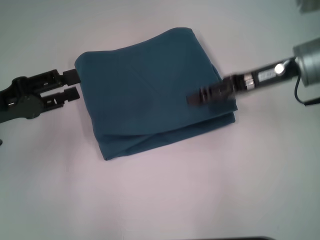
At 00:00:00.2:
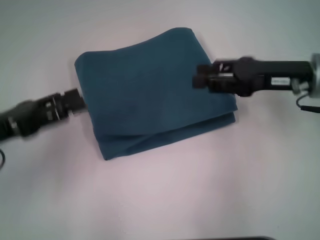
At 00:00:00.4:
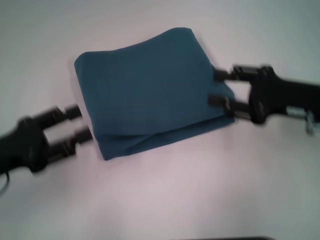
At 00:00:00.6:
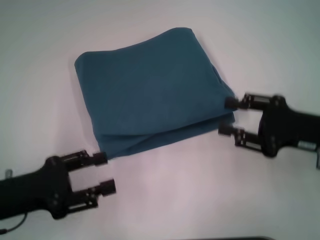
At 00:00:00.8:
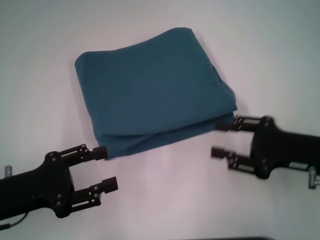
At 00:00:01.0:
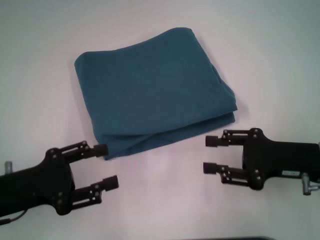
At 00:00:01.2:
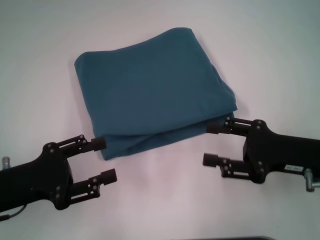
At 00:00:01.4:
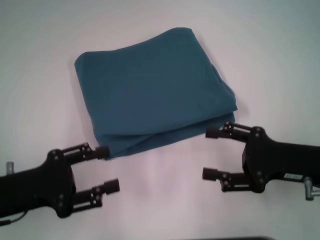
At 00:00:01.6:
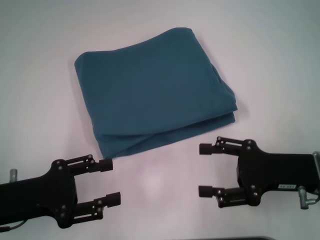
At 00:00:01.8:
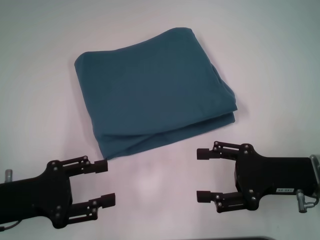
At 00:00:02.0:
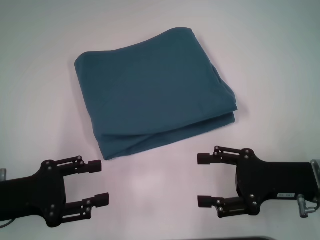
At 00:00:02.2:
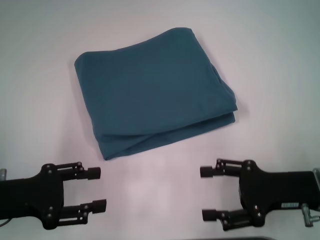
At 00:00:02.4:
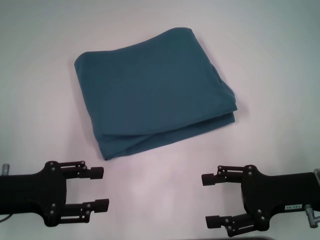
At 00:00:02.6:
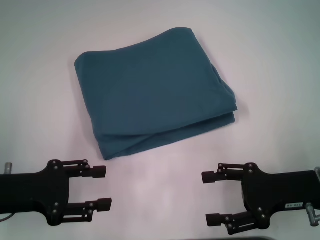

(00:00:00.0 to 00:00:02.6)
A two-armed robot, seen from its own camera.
00:00:00.0 - 00:00:01.2: The right gripper shifts about 15 cm backward and downward, while the left gripper shifts roughly 5 cm backward.
00:00:01.2 - 00:00:02.6: The grippers stay close to where they were, moving slightly.
